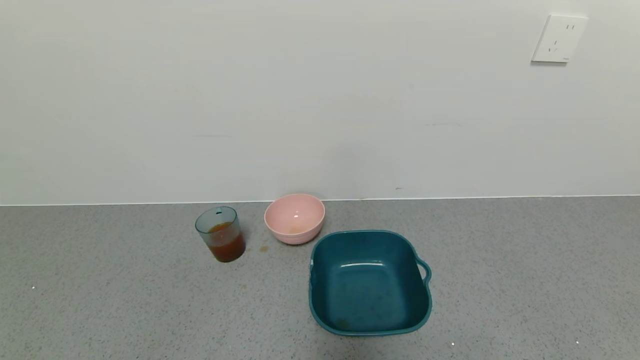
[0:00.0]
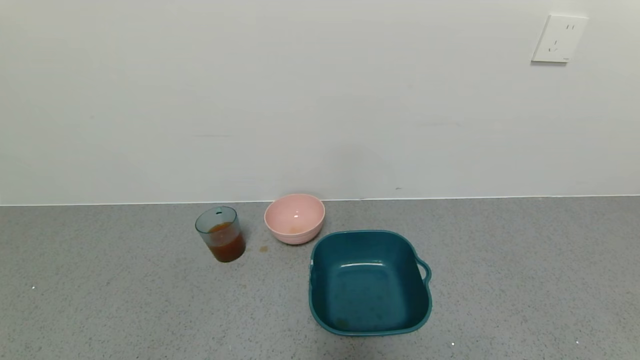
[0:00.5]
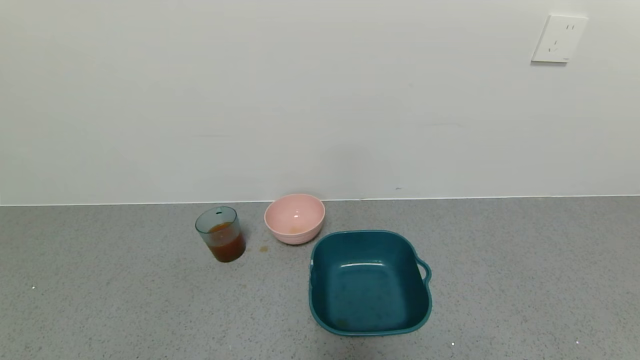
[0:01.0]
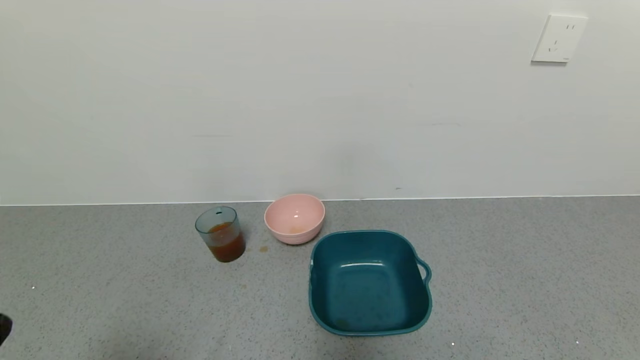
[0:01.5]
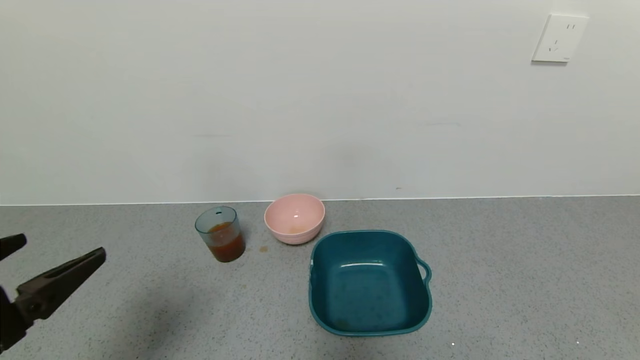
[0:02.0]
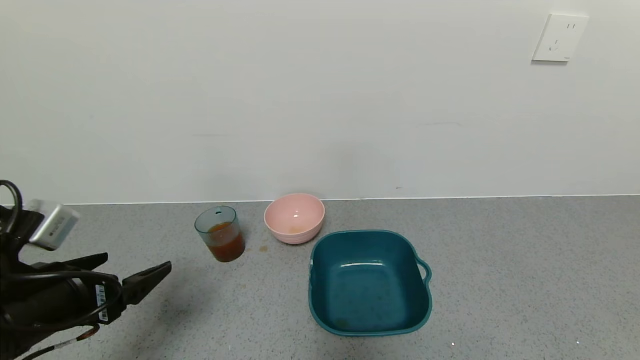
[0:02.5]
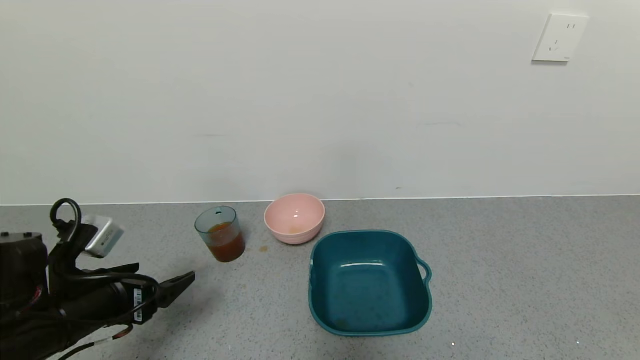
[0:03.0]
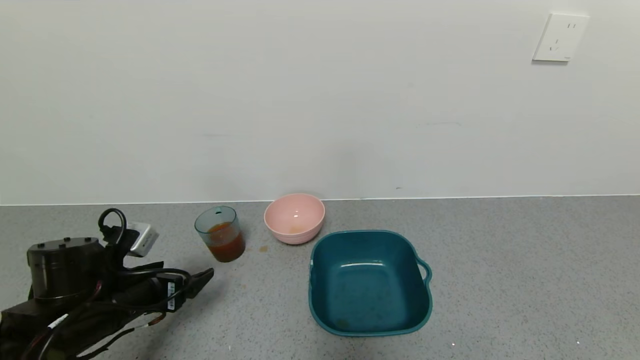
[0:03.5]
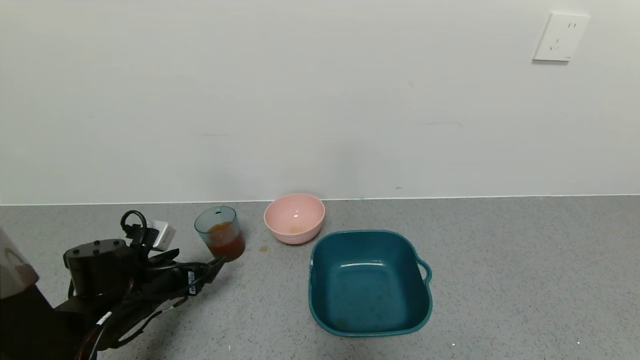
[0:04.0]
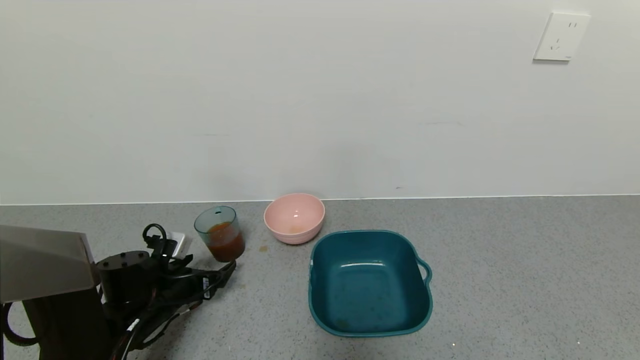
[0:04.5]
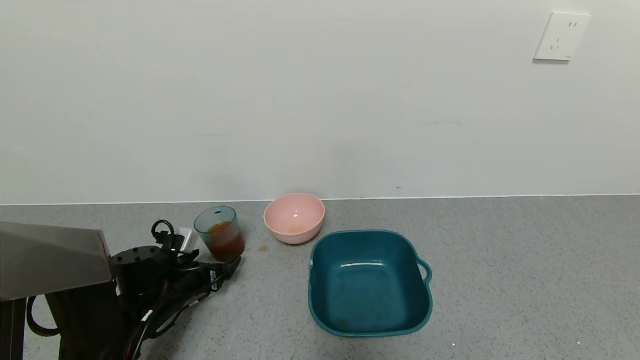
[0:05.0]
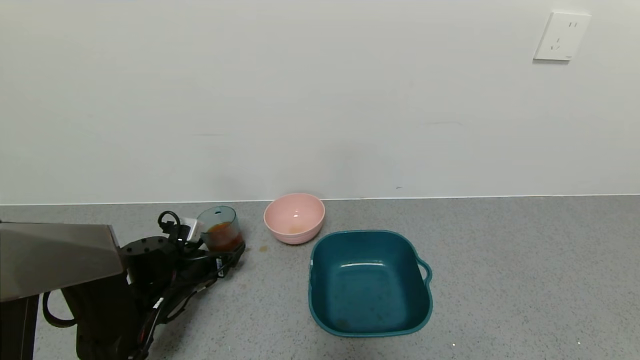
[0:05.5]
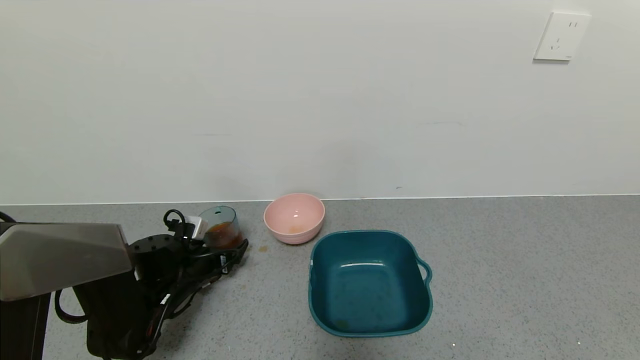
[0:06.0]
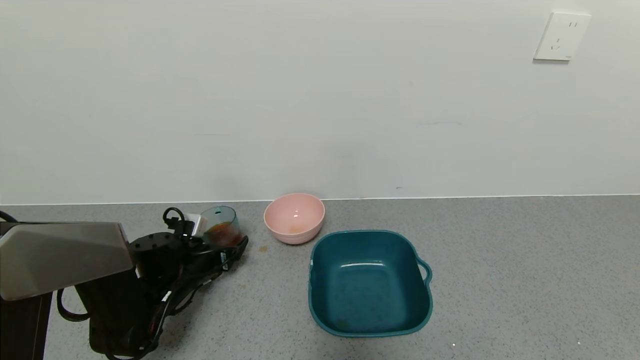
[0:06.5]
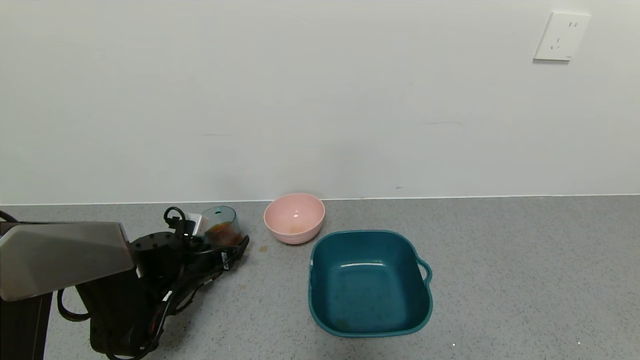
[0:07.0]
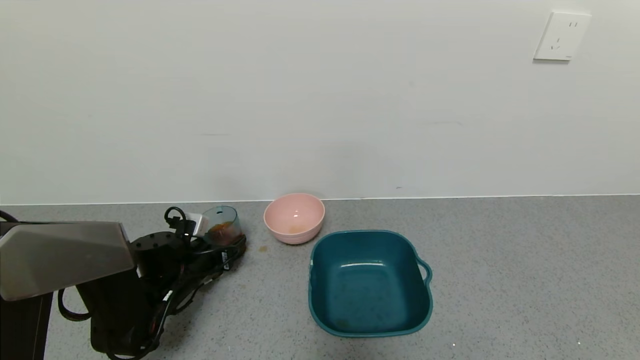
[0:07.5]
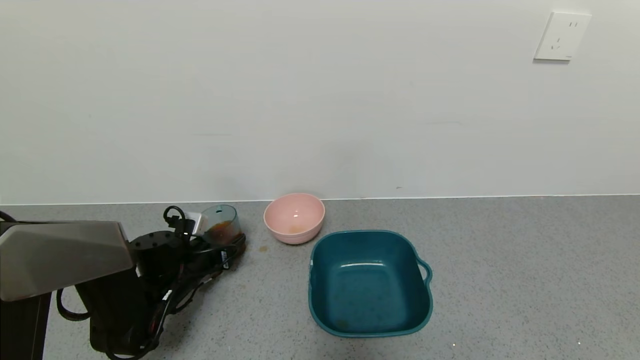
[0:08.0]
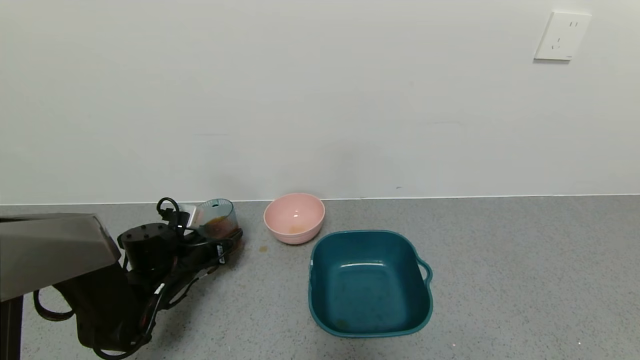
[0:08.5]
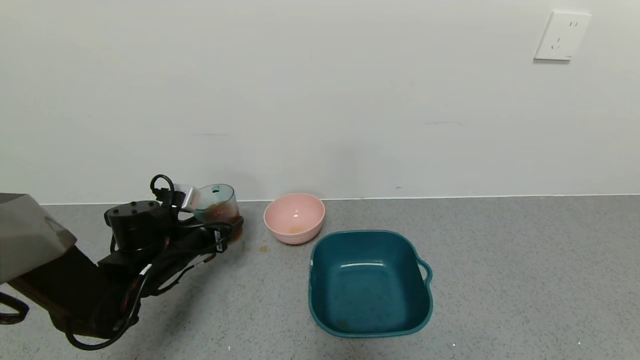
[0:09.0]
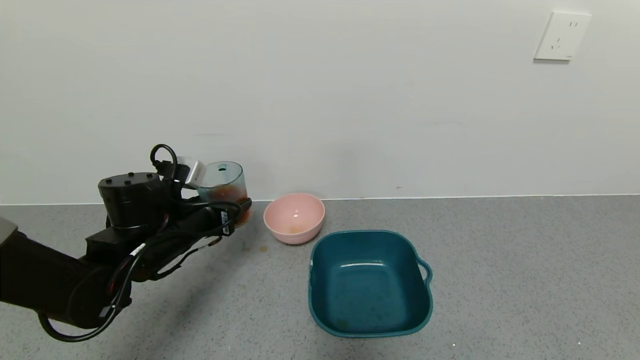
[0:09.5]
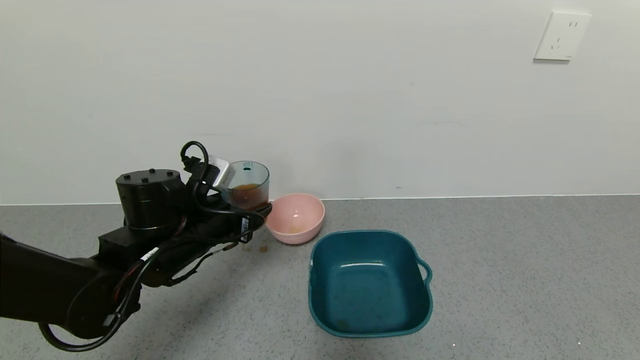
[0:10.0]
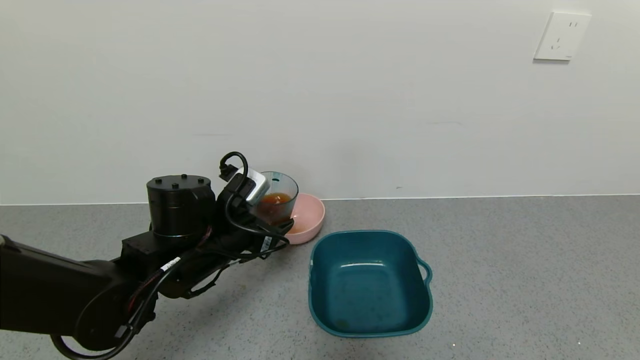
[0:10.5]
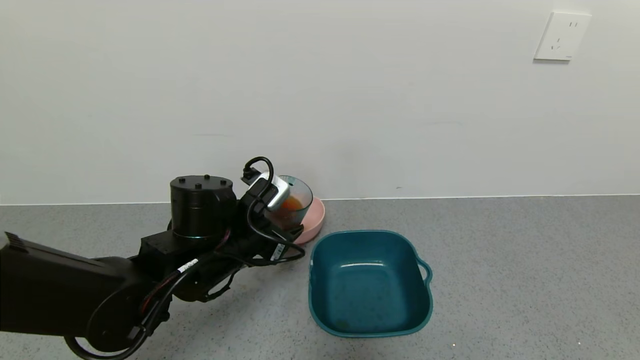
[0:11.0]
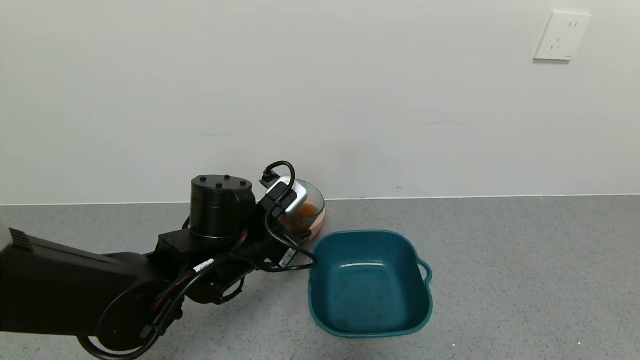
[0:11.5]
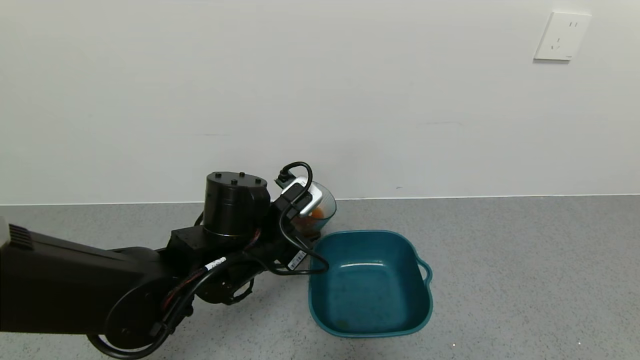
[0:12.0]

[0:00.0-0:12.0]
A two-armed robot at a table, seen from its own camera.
Task of the whole recording: use a gripper to pick up the cup and pour the liquid into a bowl or tray.
Step, 0:00.0 to 0:08.0: Pick up blue cup filled with orange juice with left gripper.
0:00.0 to 0:02.0: The left gripper moves upward and forward, about 20 cm.
0:02.0 to 0:04.0: The left gripper is displaced forward and downward by approximately 25 cm.
0:04.0 to 0:06.0: The left gripper moves forward, about 5 cm.
0:06.0 to 0:08.0: The left gripper closes.
0:08.0 to 0:10.0: The left gripper moves upward and to the right, about 15 cm.
0:10.0 to 0:12.0: The left gripper is displaced to the right by some 10 cm.

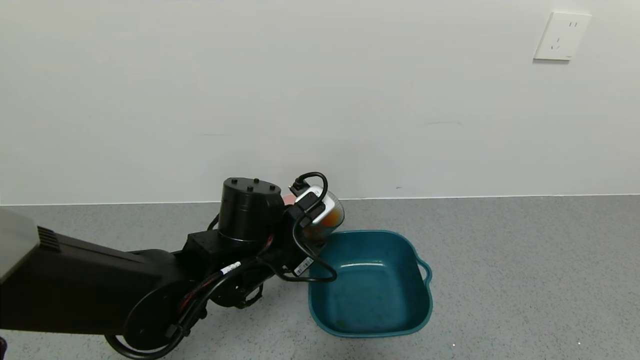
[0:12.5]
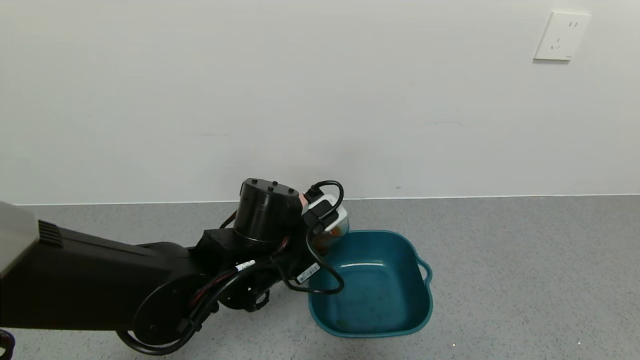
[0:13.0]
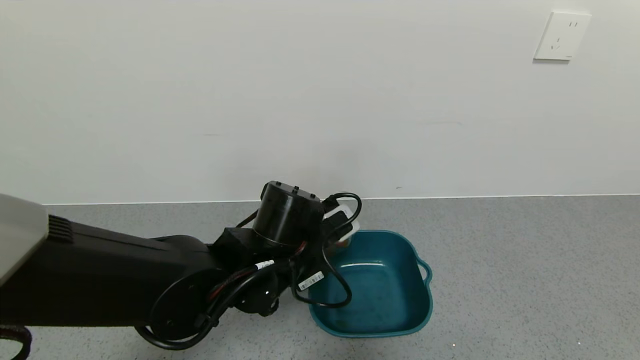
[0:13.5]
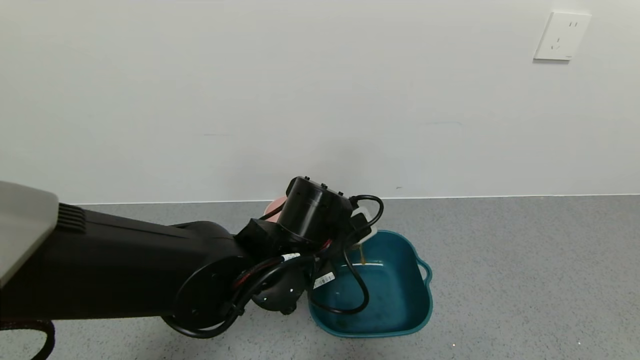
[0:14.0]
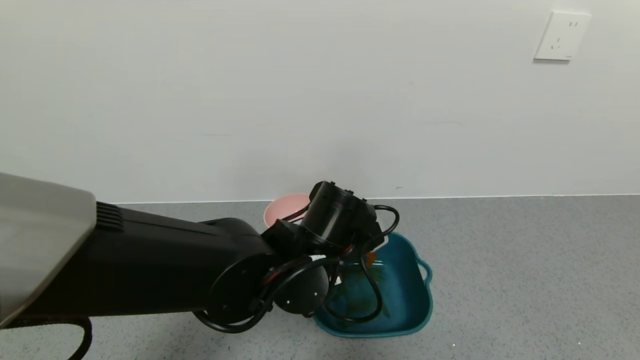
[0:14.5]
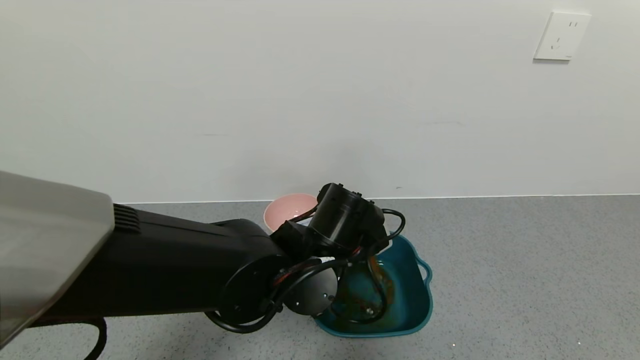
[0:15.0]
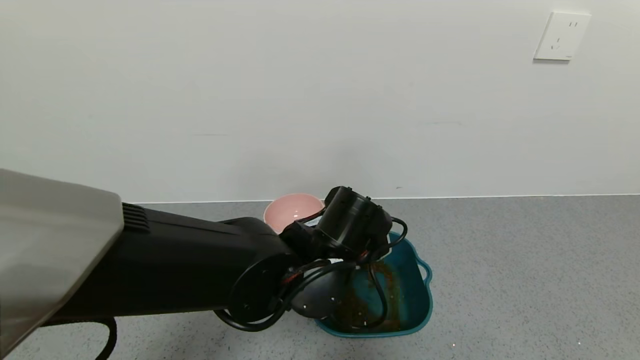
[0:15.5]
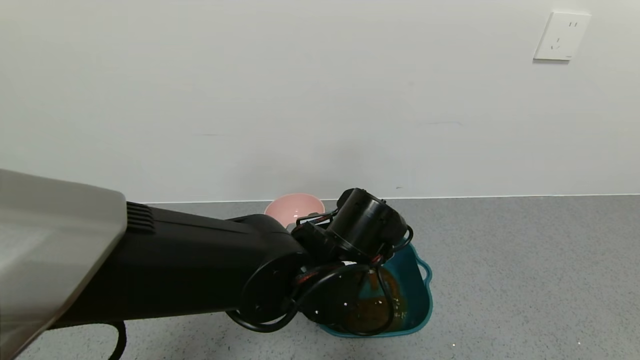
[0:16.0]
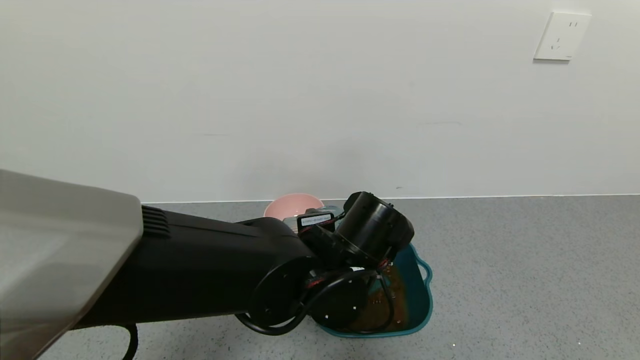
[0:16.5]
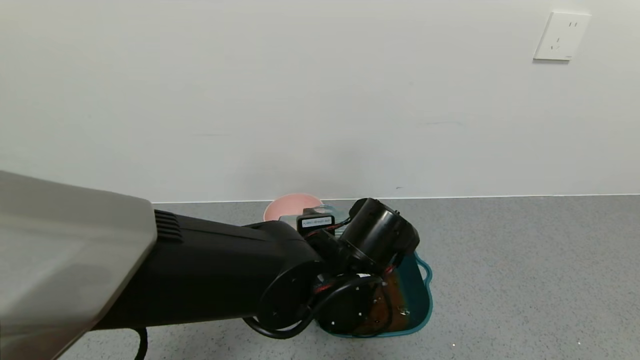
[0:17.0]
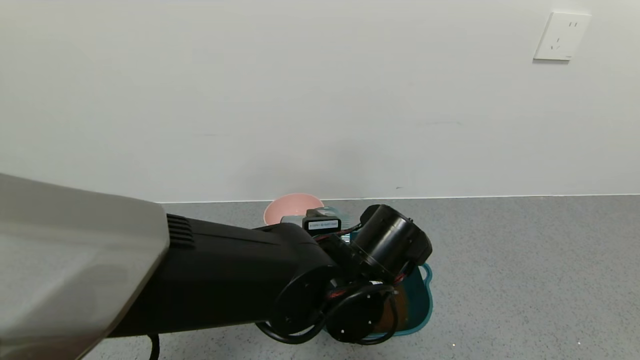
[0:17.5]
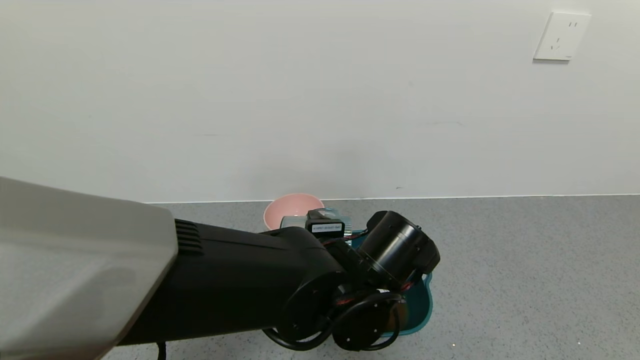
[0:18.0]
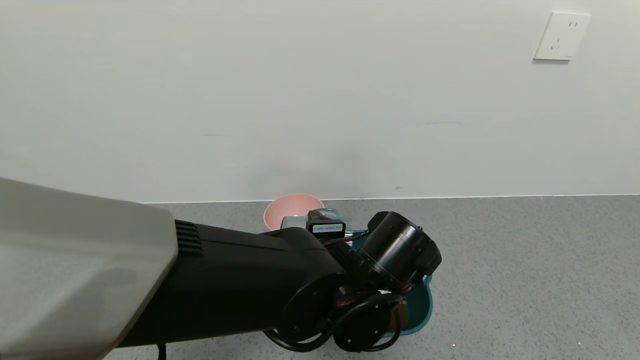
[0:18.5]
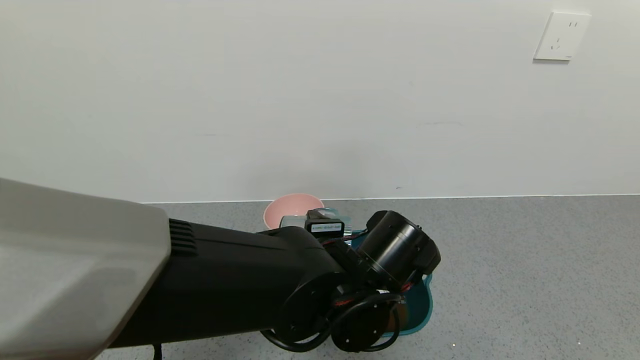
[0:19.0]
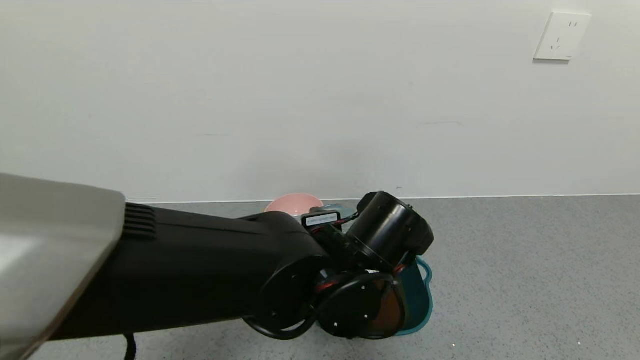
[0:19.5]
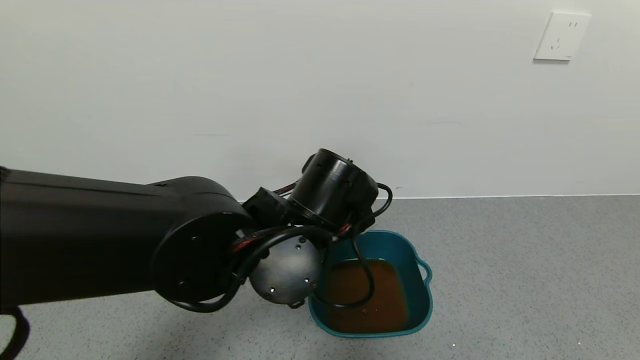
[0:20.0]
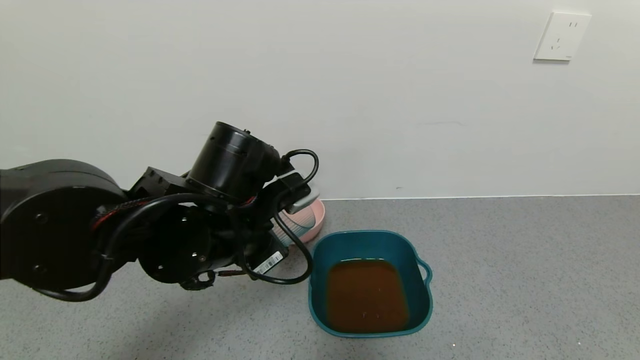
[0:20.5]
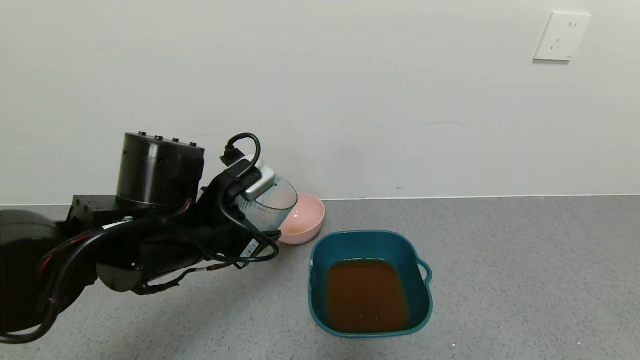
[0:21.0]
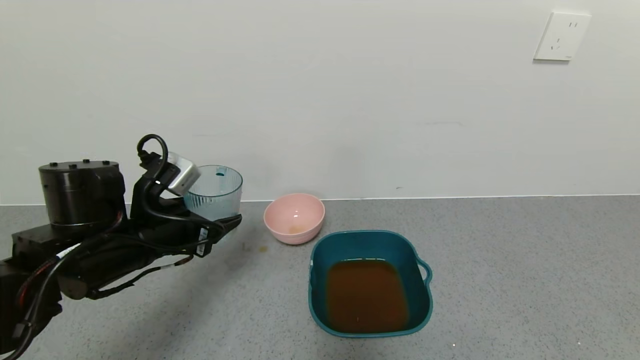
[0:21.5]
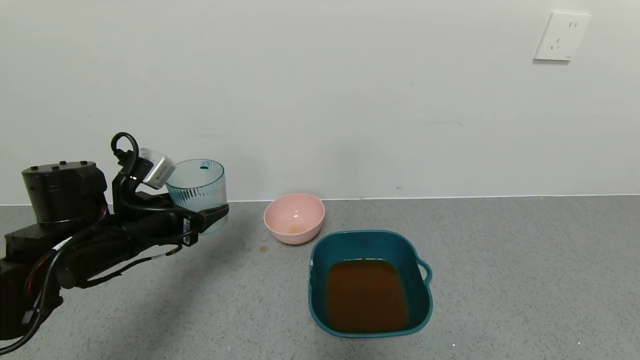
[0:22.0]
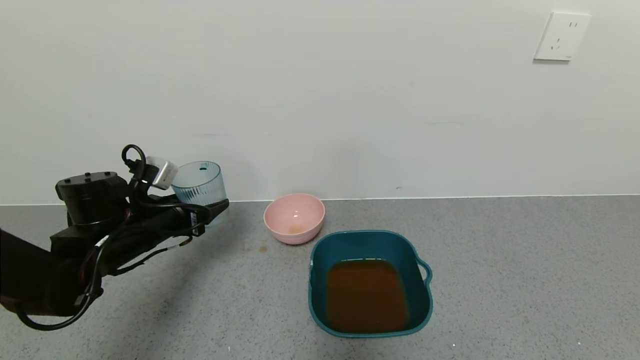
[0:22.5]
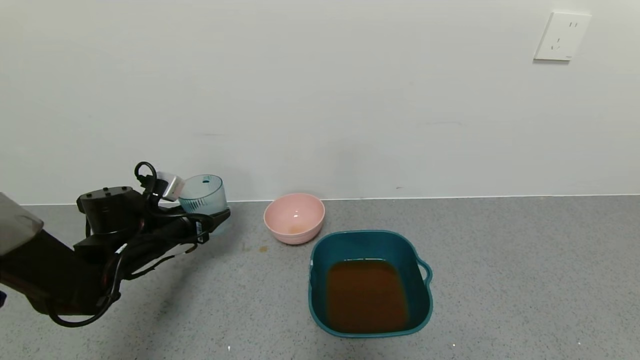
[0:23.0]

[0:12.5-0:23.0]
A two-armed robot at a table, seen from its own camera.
Task of the whole recording: use a gripper to pick up the cup and pour the liquid into a bowl or tray.
Step, 0:12.5 to 0:16.0: Pour the orange juice into the blue basin with left gripper.
0:12.5 to 0:14.5: The left gripper moves to the right, about 5 cm.
0:16.5 to 0:19.0: The grippers make only small movements.
0:19.0 to 0:21.0: The left gripper travels to the left by some 15 cm.
0:21.0 to 0:23.0: The left gripper moves to the left, downward and forward, approximately 20 cm.
